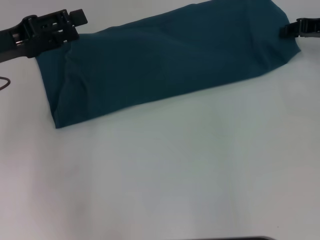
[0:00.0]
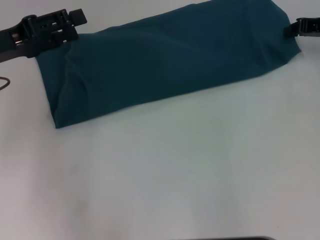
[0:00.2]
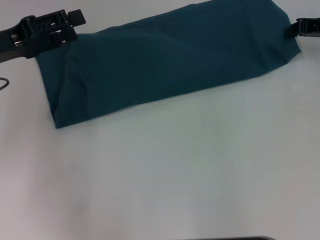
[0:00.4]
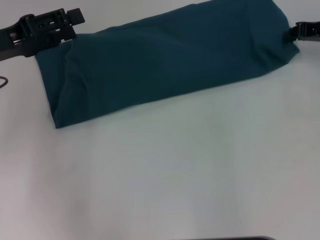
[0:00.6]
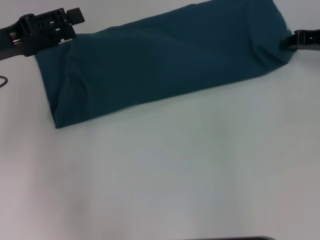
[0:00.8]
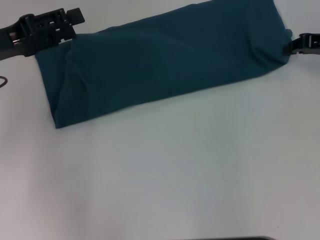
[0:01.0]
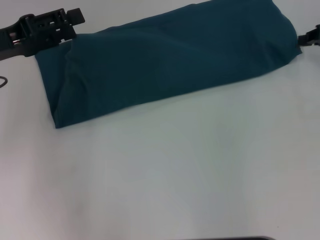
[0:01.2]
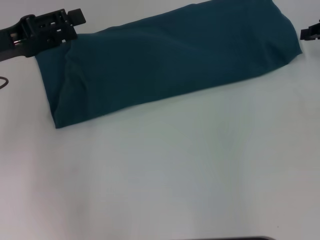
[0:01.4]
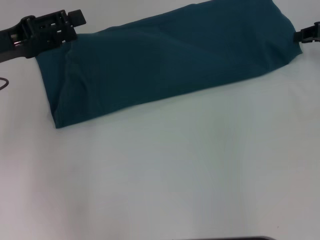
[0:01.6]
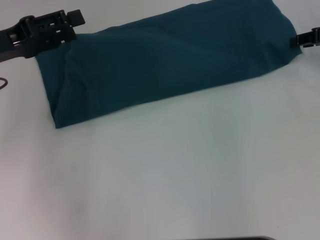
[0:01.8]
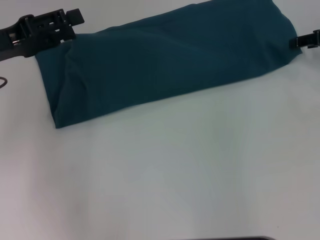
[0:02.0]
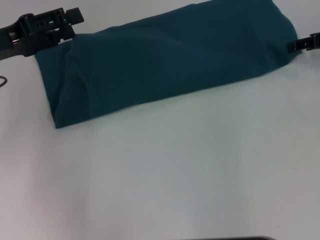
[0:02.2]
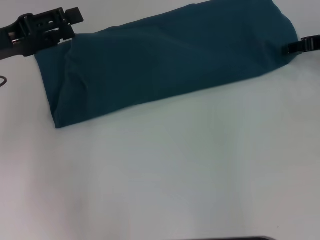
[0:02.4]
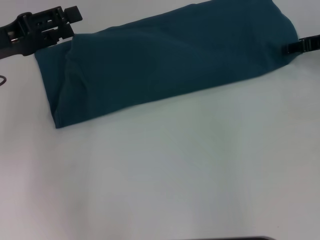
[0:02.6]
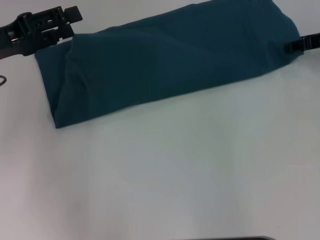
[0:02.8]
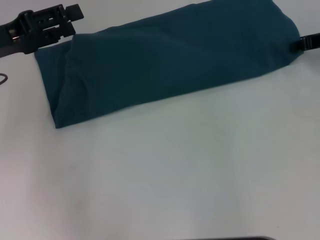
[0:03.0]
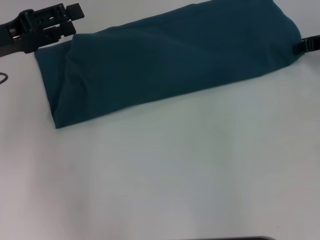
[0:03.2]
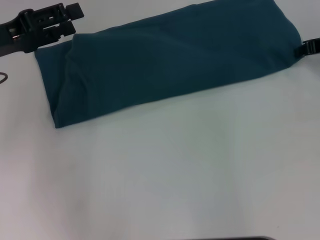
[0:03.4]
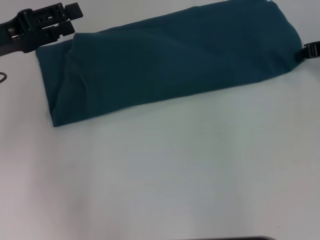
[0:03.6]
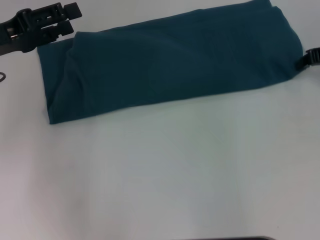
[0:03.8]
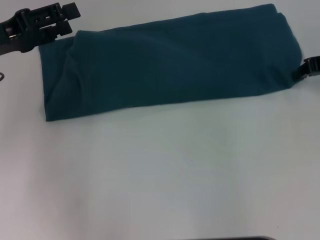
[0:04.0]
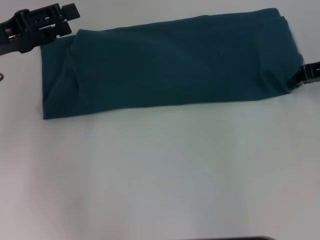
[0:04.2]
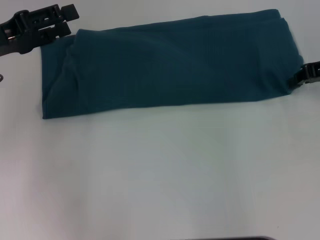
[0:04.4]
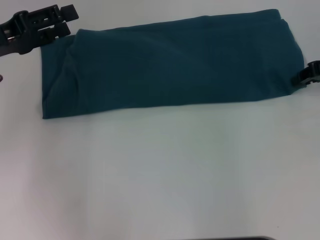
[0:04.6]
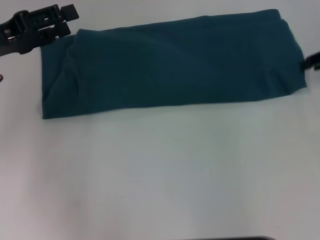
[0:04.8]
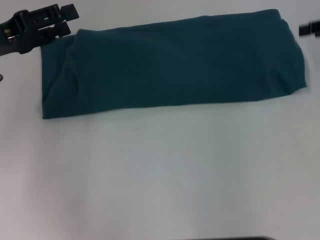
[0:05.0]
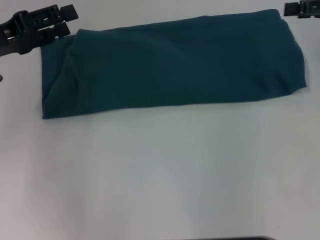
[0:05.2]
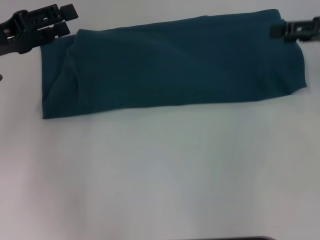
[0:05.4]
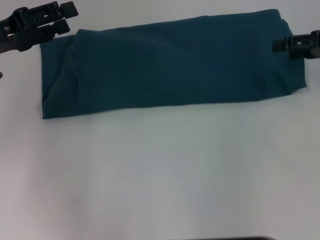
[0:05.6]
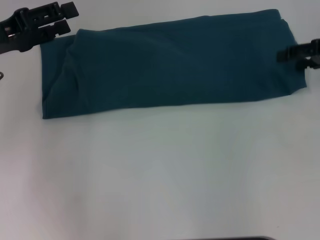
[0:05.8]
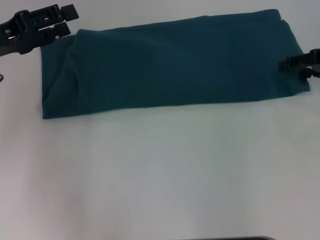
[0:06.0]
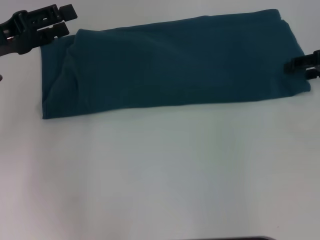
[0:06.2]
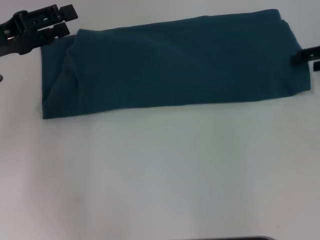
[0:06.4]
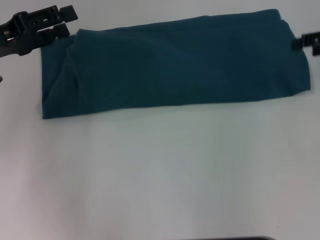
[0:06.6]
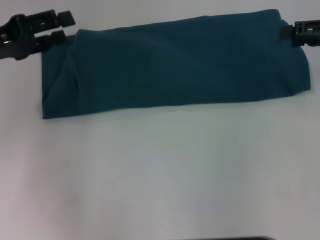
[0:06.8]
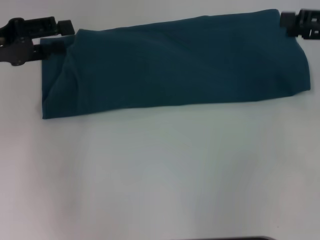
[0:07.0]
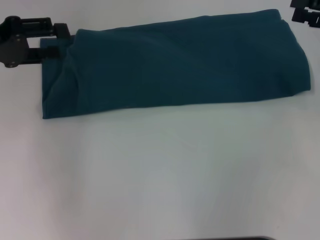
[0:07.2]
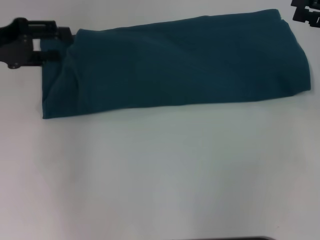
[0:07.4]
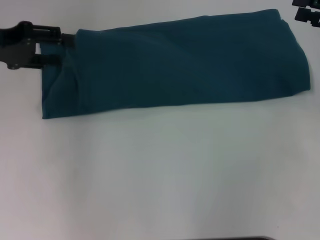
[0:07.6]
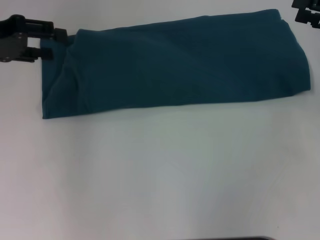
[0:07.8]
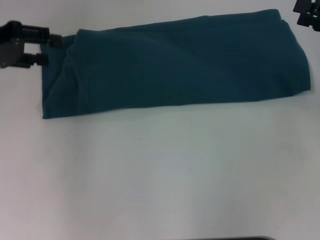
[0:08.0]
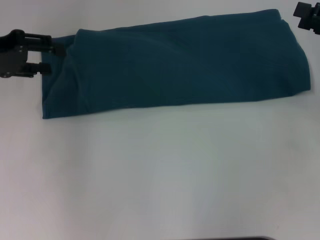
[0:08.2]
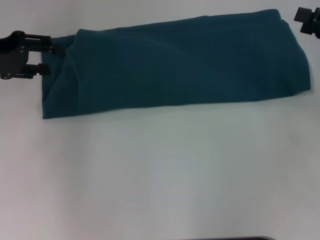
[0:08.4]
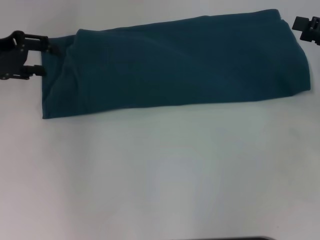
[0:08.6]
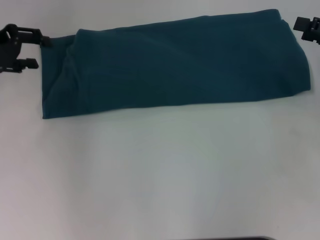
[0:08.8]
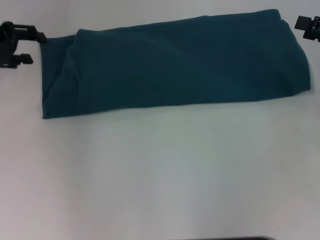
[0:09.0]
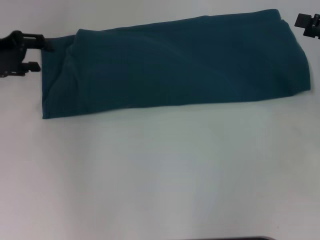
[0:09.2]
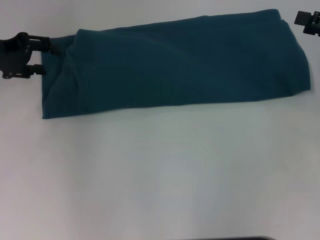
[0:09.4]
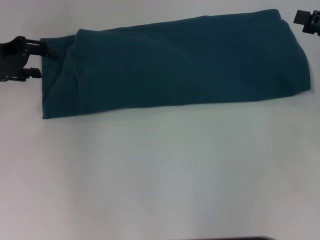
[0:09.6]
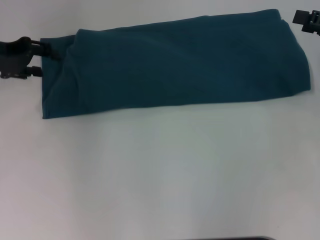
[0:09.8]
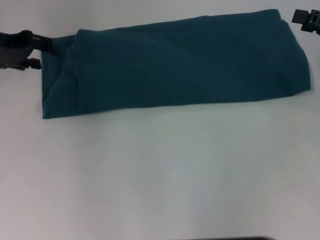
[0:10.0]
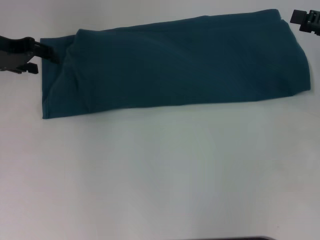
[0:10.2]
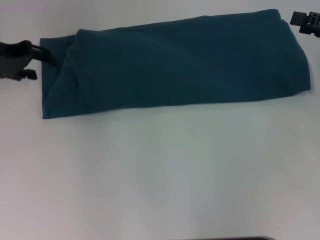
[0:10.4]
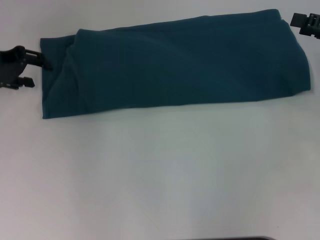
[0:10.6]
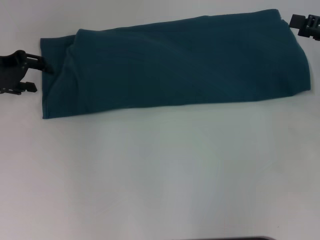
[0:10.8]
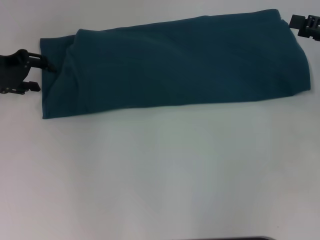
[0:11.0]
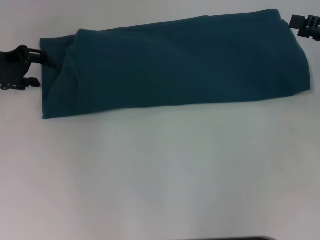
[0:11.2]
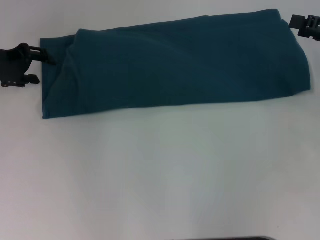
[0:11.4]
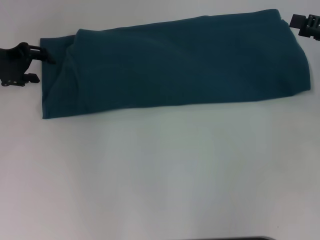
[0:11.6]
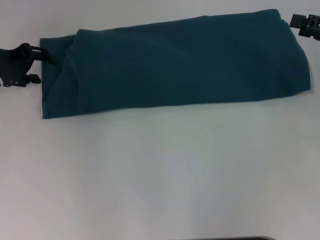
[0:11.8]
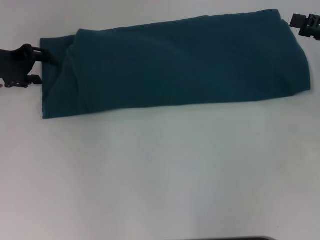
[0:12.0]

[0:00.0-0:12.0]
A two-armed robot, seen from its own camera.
0:00.0 to 0:01.6: The right gripper closes.
0:01.6 to 0:03.0: The right gripper opens, then closes again.
0:03.0 to 0:04.4: The grippers stay close to where they were, moving slightly.
0:04.4 to 0:06.0: The right gripper opens its fingers.
0:07.6 to 0:09.0: The grippers move only a little.
0:10.4 to 0:12.0: The grippers make only small movements.

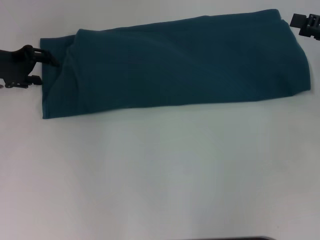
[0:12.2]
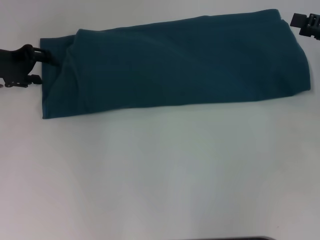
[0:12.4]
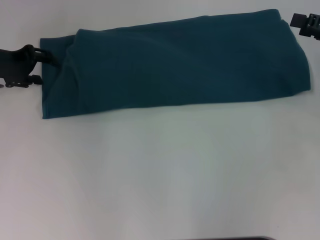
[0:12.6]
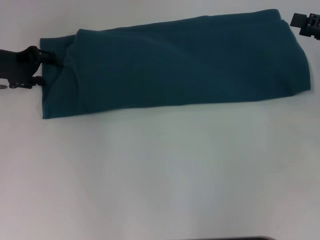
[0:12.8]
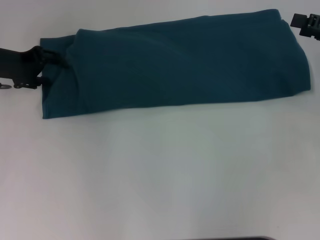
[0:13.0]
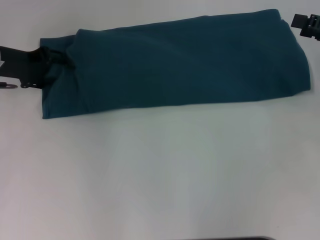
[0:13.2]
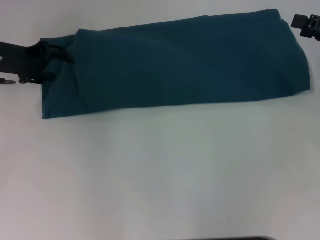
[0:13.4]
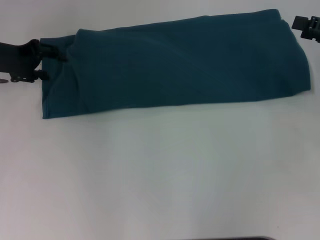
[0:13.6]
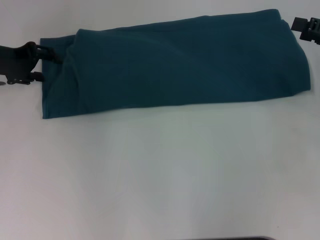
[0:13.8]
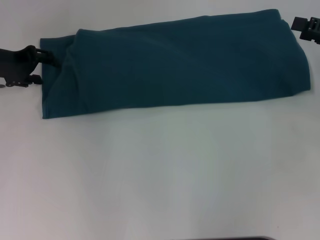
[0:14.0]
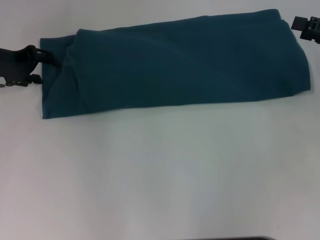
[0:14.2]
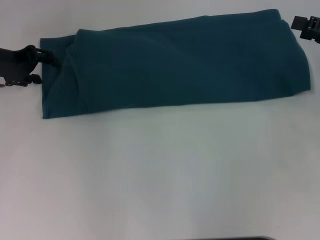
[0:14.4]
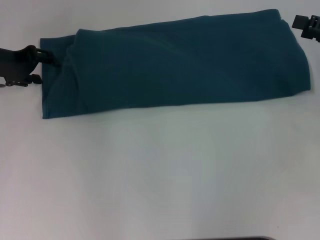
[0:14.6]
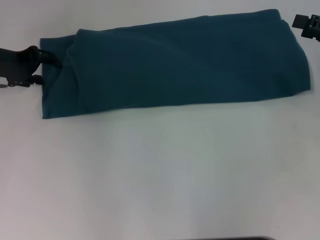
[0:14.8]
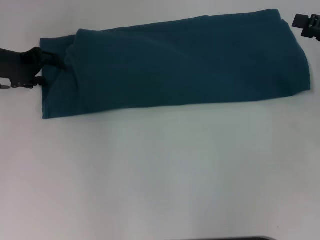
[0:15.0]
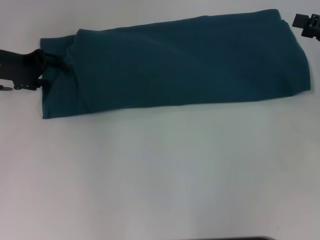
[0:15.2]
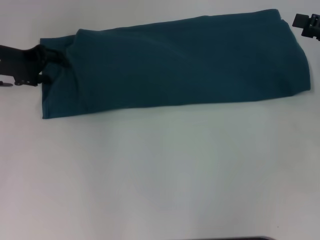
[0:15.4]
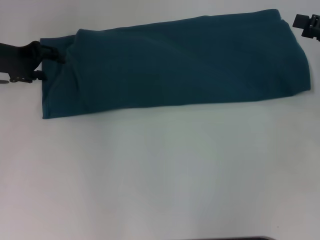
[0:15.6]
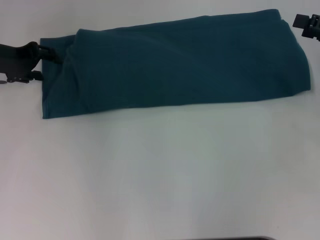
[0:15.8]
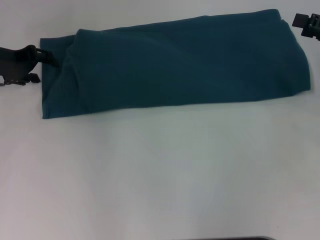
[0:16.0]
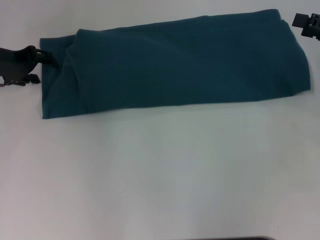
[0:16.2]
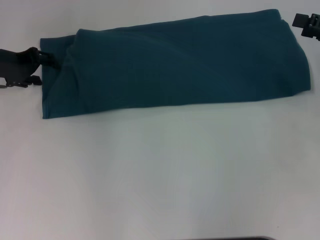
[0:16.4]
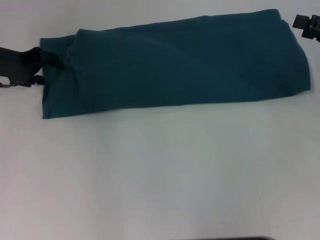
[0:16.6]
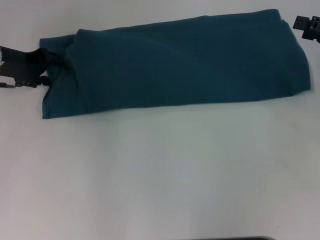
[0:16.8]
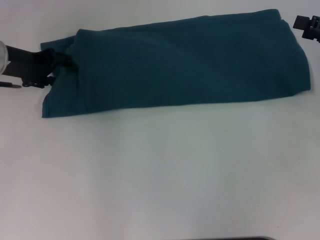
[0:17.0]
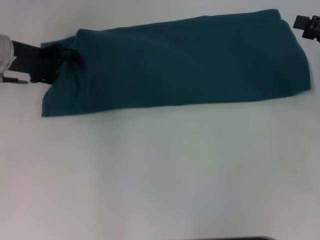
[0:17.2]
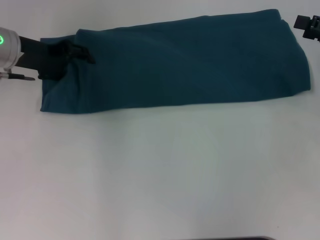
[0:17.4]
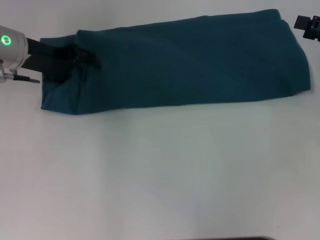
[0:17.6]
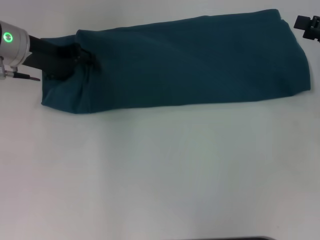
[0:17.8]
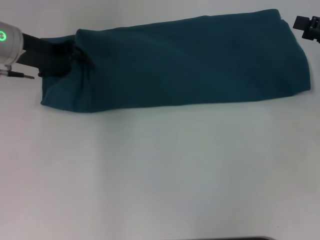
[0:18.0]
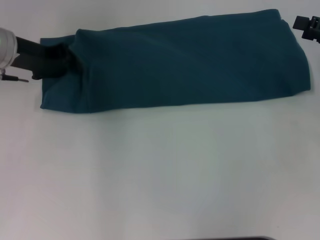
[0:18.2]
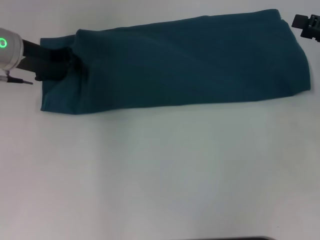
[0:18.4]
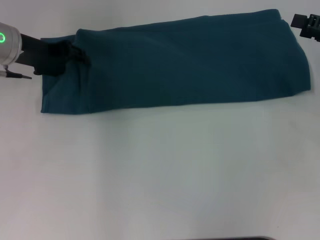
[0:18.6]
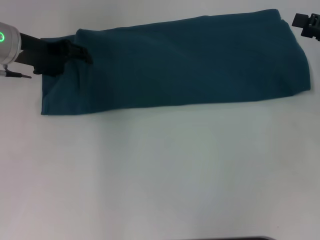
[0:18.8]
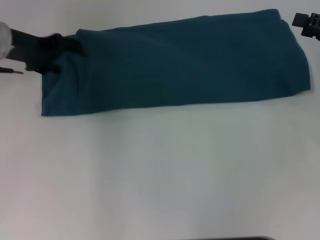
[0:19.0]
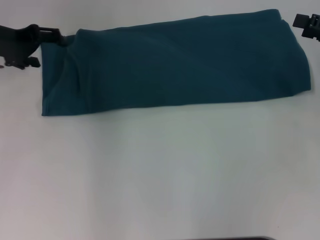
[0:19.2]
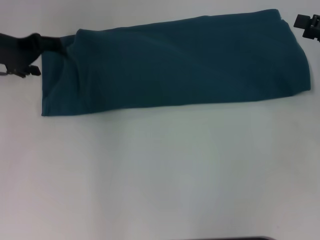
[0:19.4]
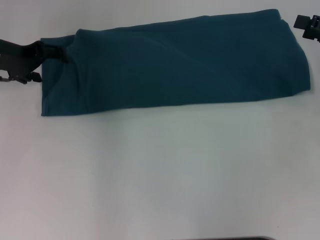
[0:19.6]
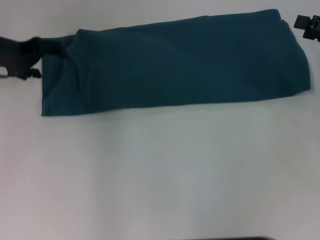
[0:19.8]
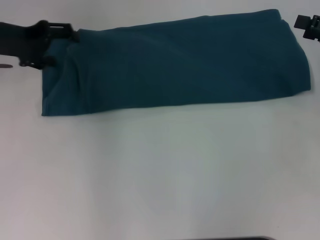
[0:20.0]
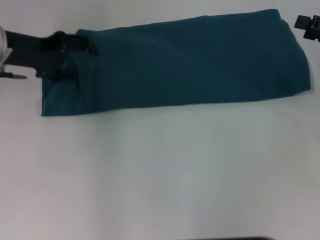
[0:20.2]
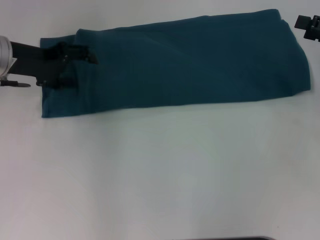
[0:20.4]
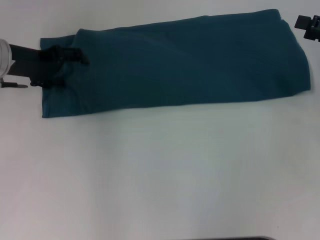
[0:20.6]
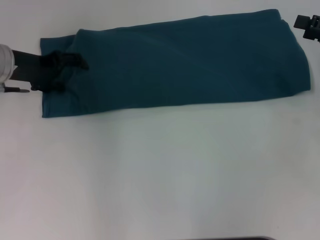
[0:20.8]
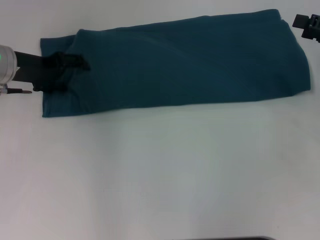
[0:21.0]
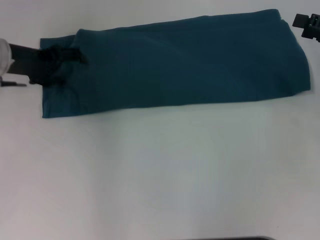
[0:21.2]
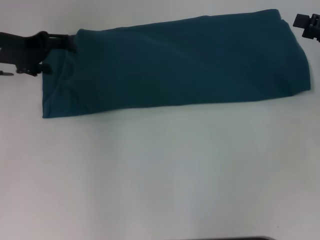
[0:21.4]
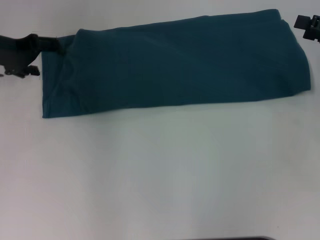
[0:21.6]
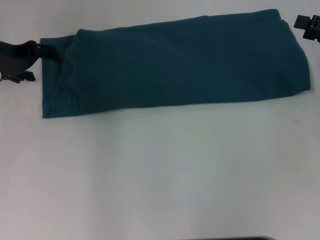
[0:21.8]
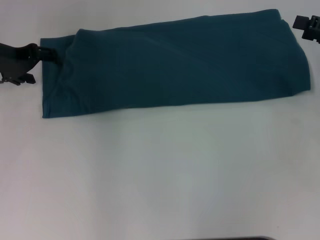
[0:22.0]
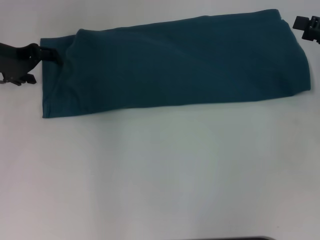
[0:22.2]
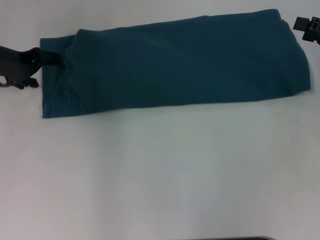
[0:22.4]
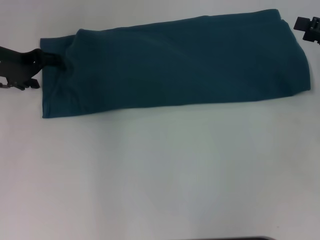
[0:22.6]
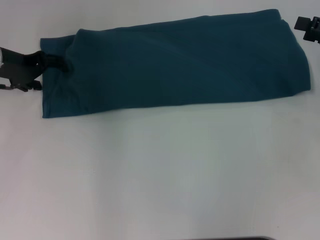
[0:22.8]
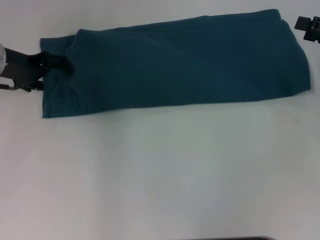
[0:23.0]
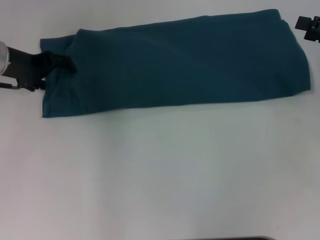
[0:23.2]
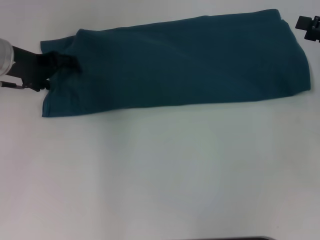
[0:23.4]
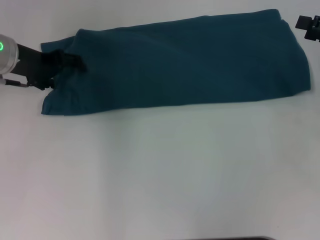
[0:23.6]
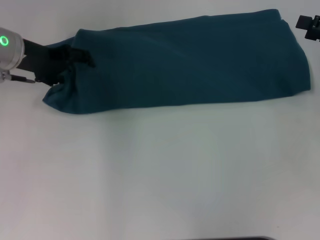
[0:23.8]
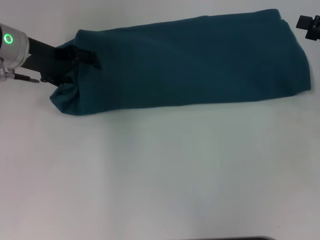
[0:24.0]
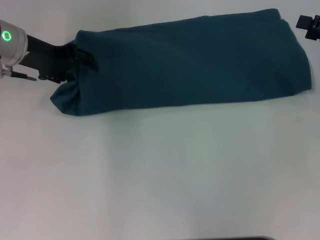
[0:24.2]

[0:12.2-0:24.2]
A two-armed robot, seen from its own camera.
0:12.2 to 0:13.8: The grippers stay close to where they were, moving slightly.
0:13.8 to 0:15.2: Neither gripper changes place.
0:15.2 to 0:16.6: Both grippers stay put.
0:16.6 to 0:18.2: There are only small adjustments of the grippers.
0:18.2 to 0:19.8: The left gripper opens up.
0:19.8 to 0:24.2: There are only small adjustments of the grippers.
